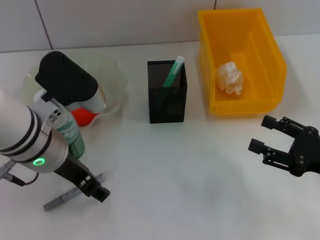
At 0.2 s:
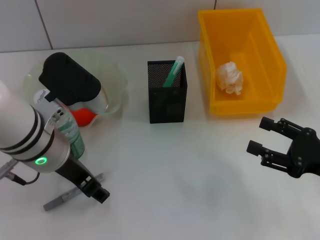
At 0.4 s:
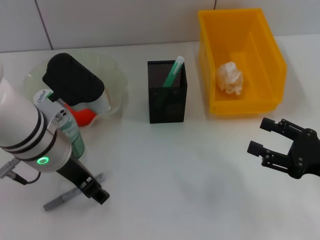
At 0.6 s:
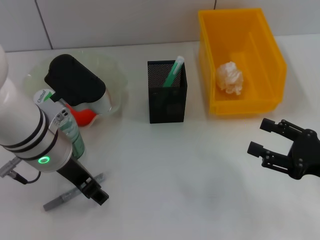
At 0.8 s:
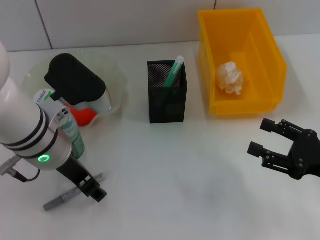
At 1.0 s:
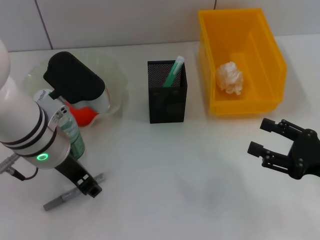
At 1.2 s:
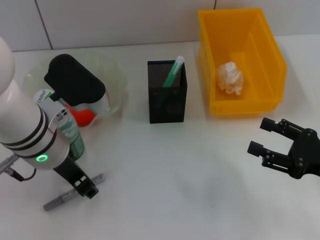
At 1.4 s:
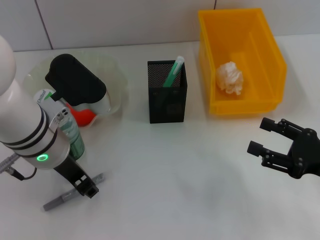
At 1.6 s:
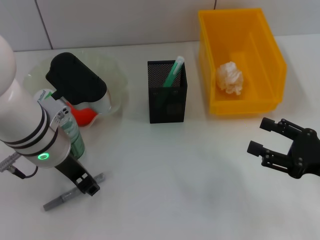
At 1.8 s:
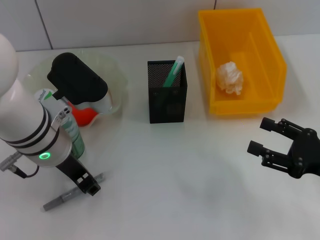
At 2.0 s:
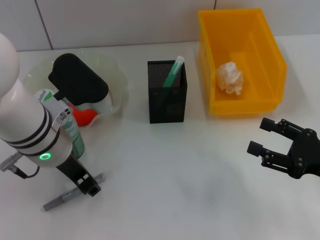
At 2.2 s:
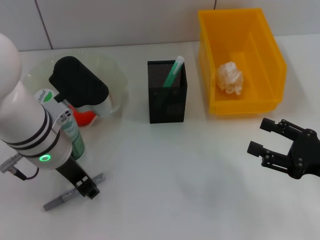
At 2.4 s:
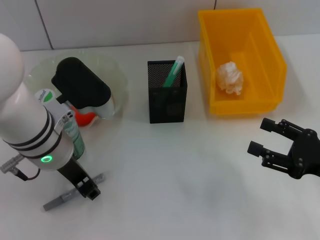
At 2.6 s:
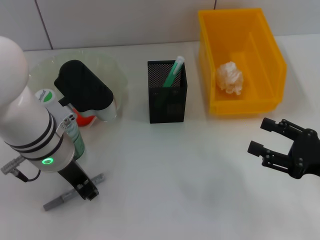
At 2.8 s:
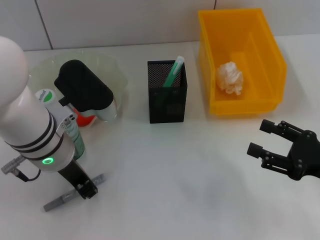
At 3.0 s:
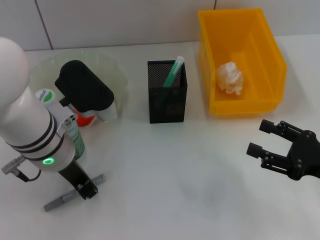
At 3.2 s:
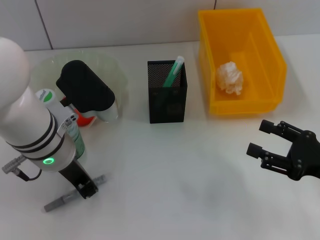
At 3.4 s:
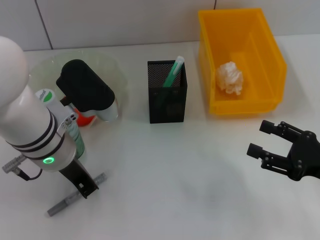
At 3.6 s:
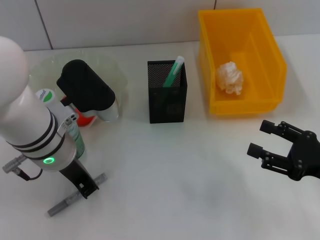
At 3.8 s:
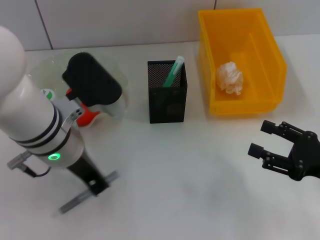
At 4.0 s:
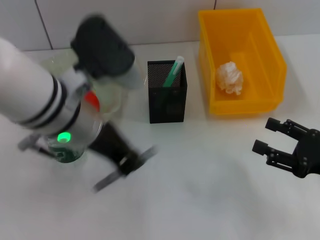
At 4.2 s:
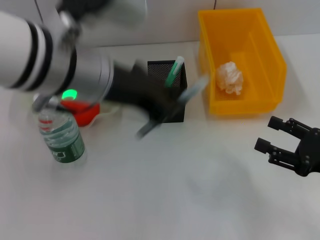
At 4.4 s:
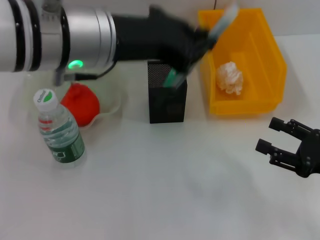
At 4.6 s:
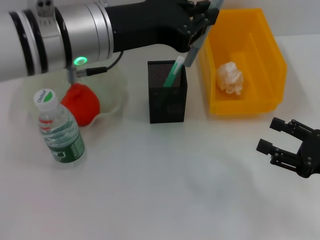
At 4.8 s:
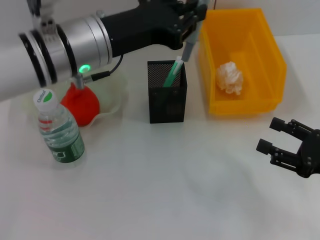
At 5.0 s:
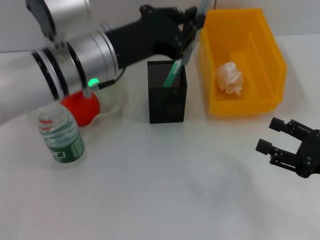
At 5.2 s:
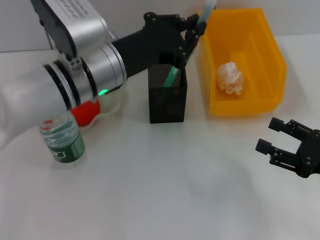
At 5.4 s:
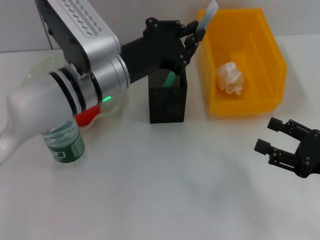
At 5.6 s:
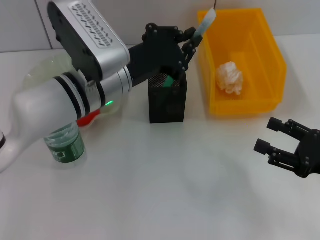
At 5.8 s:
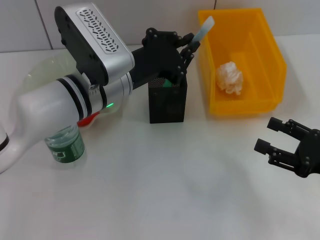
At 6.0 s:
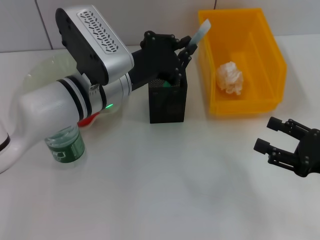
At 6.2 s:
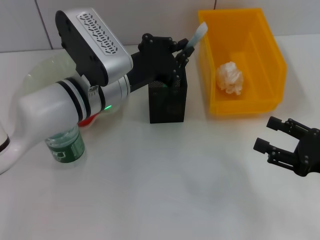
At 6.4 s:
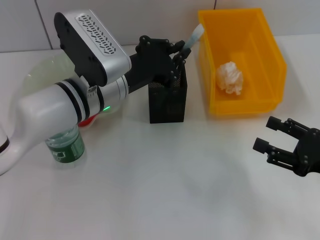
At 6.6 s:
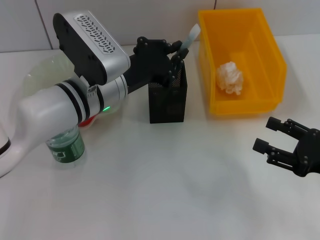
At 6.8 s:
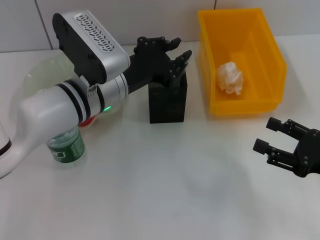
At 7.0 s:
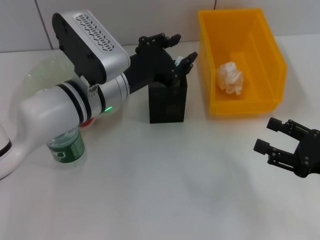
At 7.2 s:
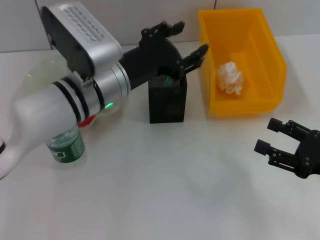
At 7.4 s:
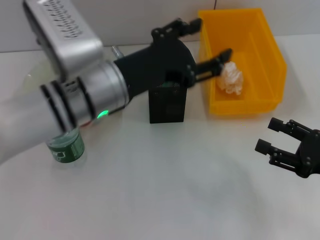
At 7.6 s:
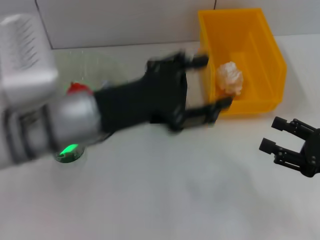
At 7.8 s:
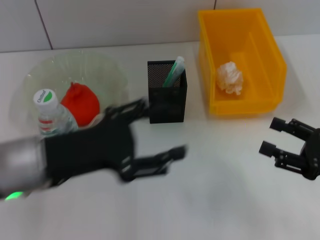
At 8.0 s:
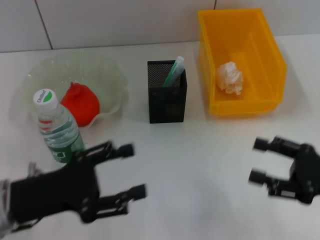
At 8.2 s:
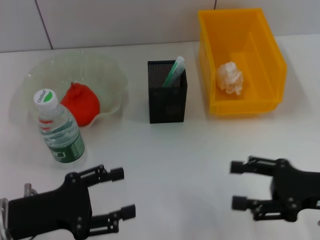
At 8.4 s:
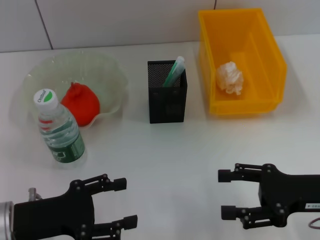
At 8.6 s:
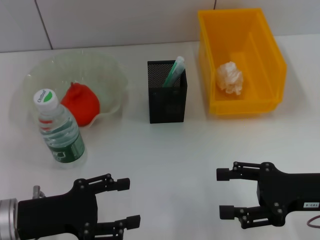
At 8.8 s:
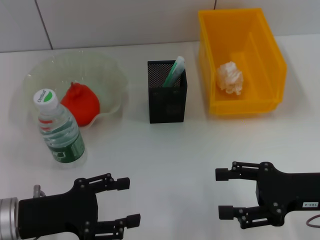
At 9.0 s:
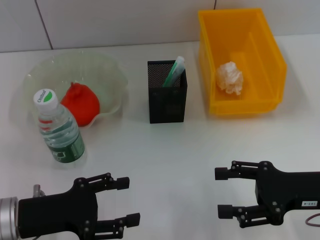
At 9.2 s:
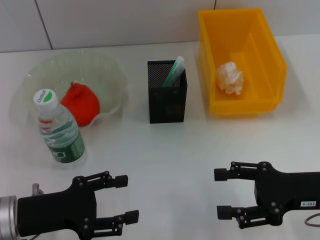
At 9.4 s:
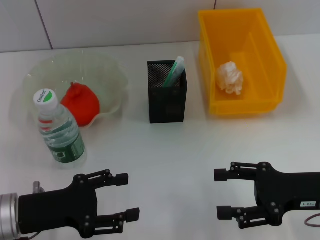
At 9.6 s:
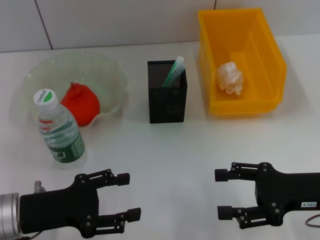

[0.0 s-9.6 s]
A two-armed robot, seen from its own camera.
Step, 0.0 to 3.4 s: Grab the gray glue with the left hand.
Step, 3.6 to 7.0 s: Place the gray glue into the pen holder with the left hand.
0.0 to 1.6 s: The left gripper closes its fingers.
1.6 to 3.2 s: Neither gripper changes place.
3.2 to 4.8 s: The left gripper moves upward, approximately 5 cm.
4.8 to 6.4 s: The left gripper is displaced downward by about 10 cm.
6.4 to 8.0 s: The left gripper shifts about 20 cm to the left and backward, and opens its fingers.
8.0 to 9.6 s: There are only small adjustments of the grippers.

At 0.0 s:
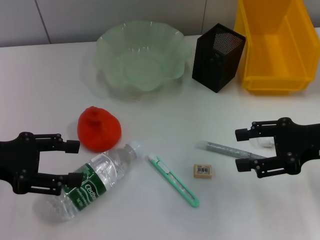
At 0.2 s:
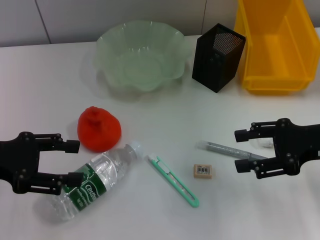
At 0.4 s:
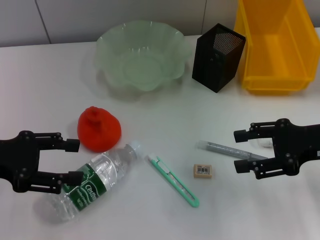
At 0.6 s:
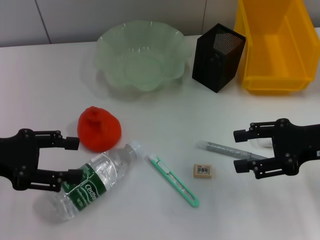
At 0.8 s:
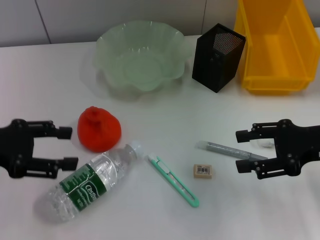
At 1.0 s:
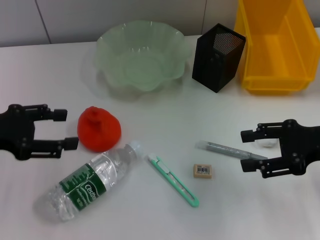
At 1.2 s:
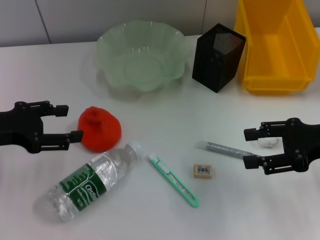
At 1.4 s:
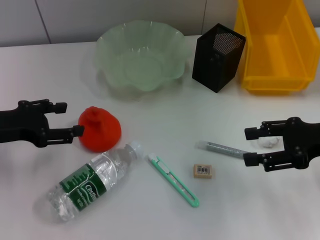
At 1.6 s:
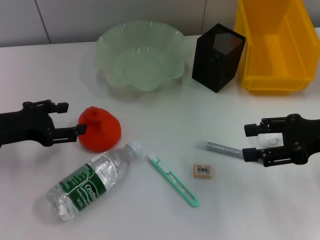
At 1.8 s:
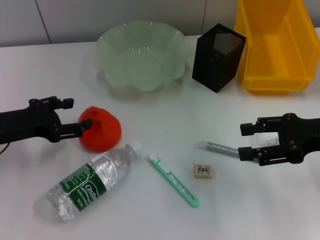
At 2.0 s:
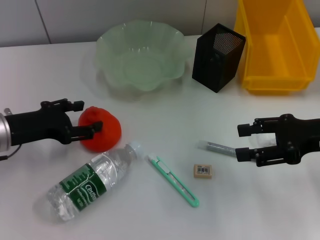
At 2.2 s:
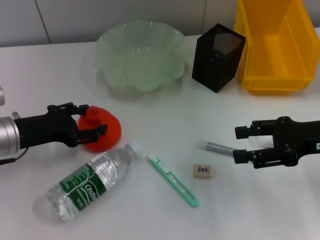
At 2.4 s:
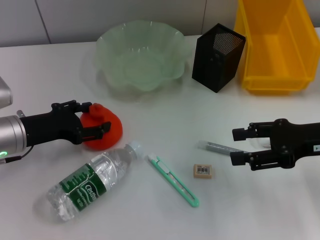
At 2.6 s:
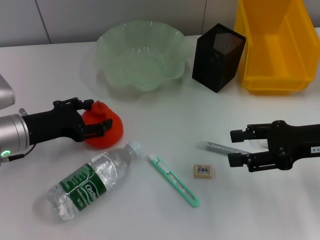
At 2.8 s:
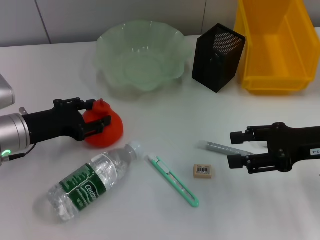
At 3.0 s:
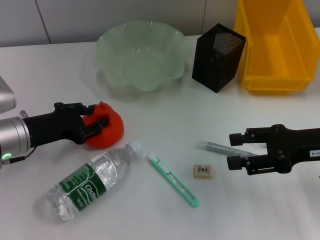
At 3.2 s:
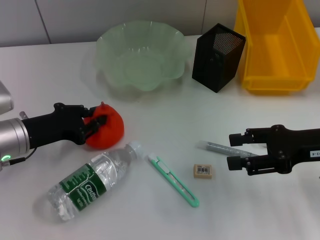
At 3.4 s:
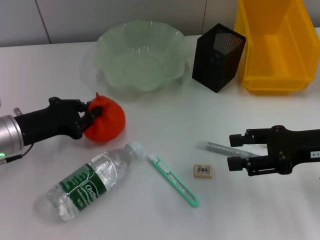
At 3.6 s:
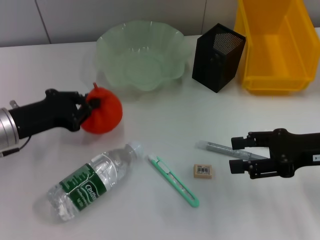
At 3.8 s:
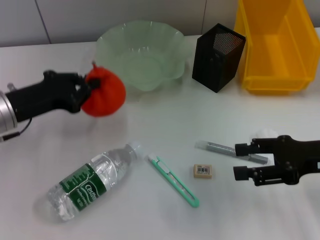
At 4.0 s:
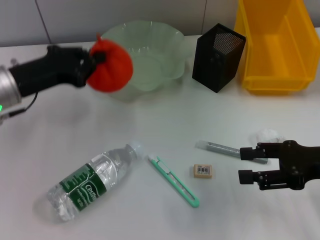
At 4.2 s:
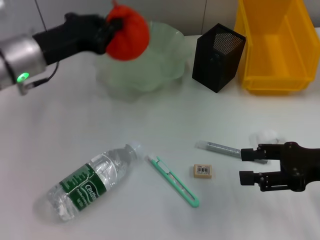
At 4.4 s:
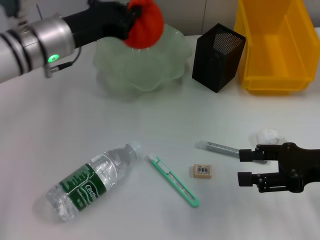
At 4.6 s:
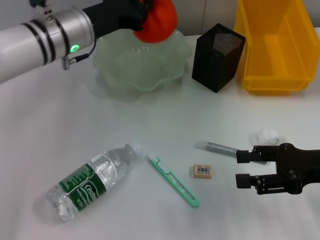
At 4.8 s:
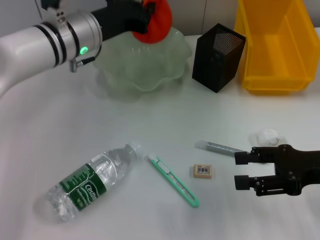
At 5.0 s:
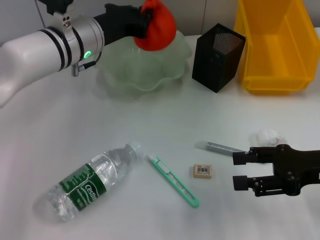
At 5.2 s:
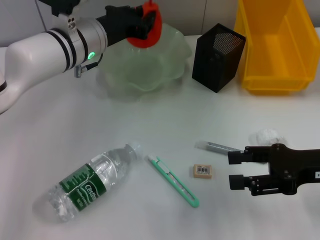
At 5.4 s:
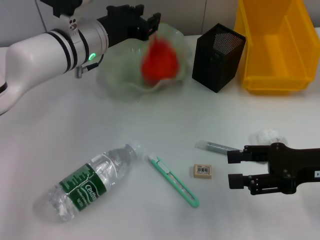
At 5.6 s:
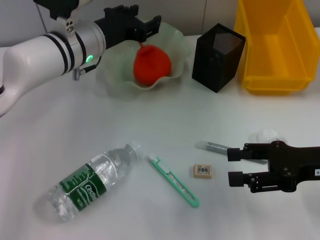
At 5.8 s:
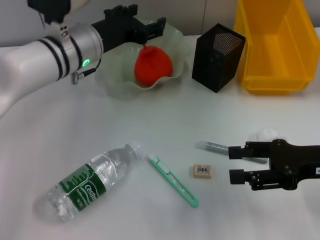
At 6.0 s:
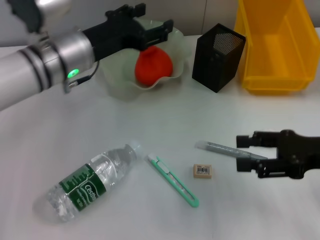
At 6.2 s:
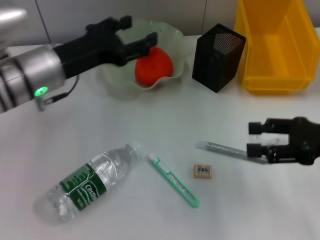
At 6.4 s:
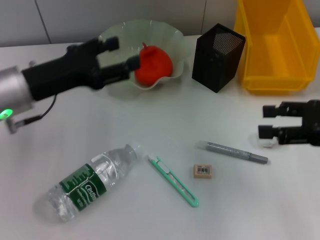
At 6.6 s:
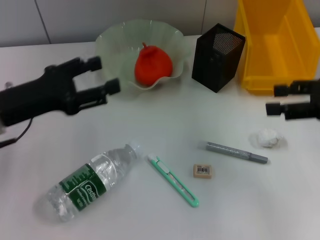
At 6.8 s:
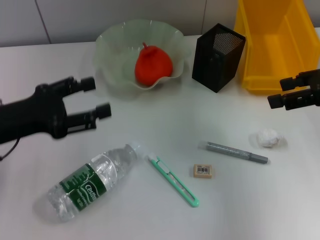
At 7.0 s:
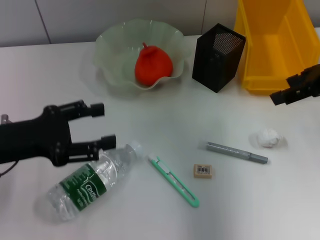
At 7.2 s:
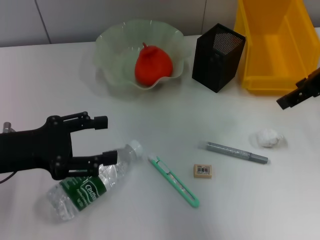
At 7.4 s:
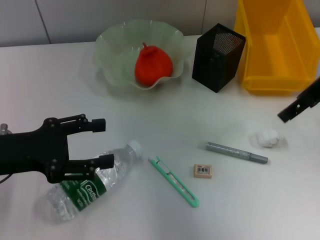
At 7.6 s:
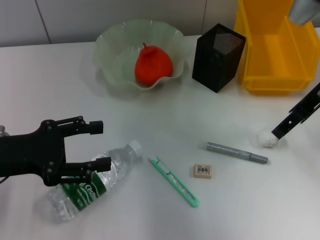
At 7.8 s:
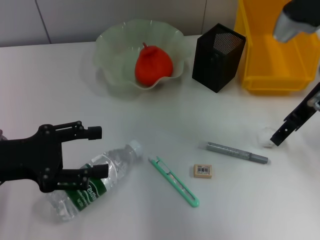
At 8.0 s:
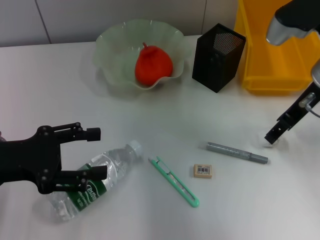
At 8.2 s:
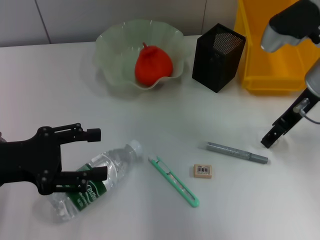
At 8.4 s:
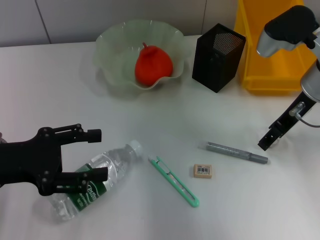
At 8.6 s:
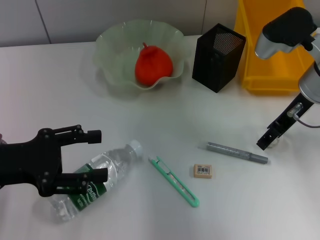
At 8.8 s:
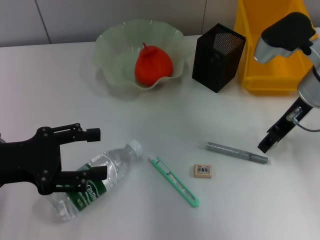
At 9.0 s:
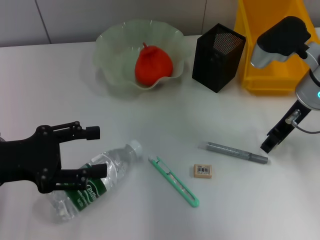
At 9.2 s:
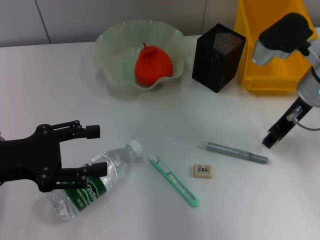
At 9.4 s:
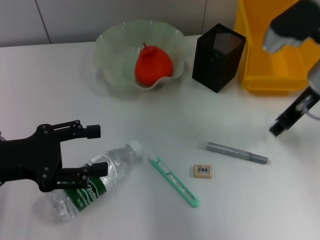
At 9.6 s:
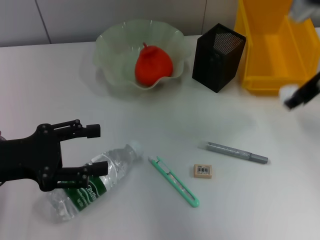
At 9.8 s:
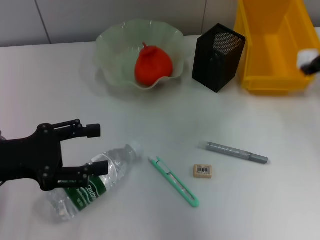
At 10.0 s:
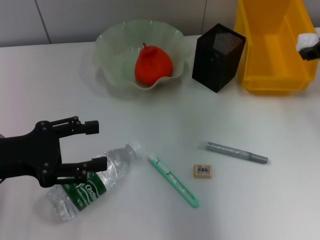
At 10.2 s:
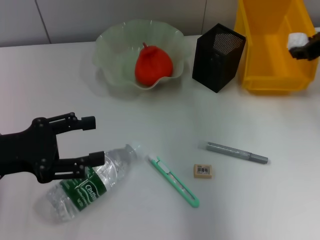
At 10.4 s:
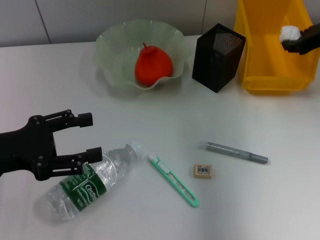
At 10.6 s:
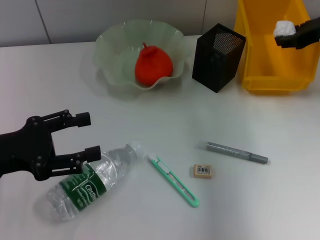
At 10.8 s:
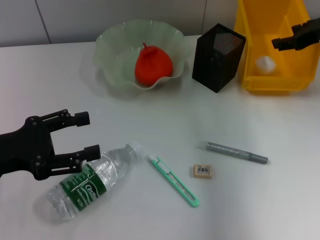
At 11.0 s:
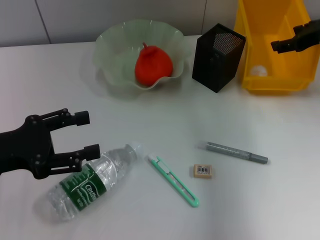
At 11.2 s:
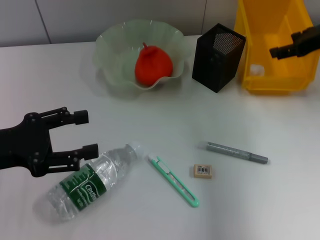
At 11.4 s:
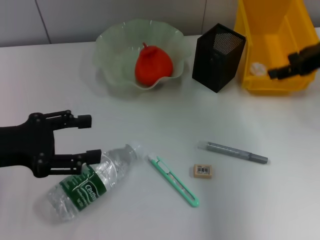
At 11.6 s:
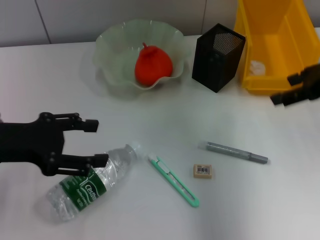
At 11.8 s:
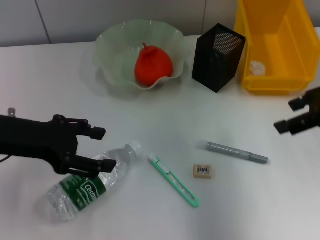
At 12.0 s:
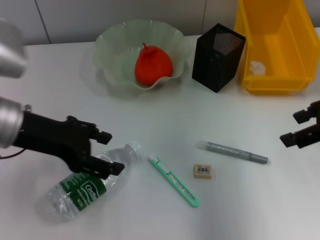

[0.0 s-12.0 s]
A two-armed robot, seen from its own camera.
Step, 0.0 to 2.8 s: Grab the orange with the left hand.
Step, 3.0 to 5.6 s: Place the orange into the fruit bowl with the left hand.
Step, 6.0 to 8.8 s: Grab the paper ball with the right hand.
Step, 9.0 to 11.0 s: Place the paper ball into the trash can with the right hand.
0.0 to 1.6 s: The left gripper changes place by approximately 5 cm.
1.6 to 3.0 s: The left gripper moves roughly 5 cm.
3.0 to 4.4 s: The left gripper travels upward, to the right and forward by approximately 15 cm, and closes.
4.4 to 6.0 s: The left gripper opens.
6.0 to 7.6 s: The left gripper heads to the left and backward, covering some 20 cm; the right gripper moves forward, upward and to the left, about 15 cm.
7.6 to 9.0 s: The right gripper goes some 5 cm downward.
9.0 to 10.4 s: The right gripper shifts approximately 10 cm to the right, and closes its fingers.
10.4 to 12.0 s: The left gripper moves to the right and upward, some 10 cm. The right gripper goes roughly 15 cm backward, and opens.
